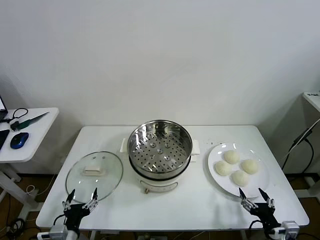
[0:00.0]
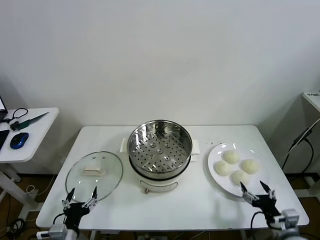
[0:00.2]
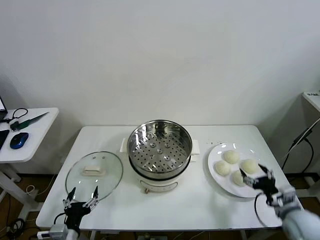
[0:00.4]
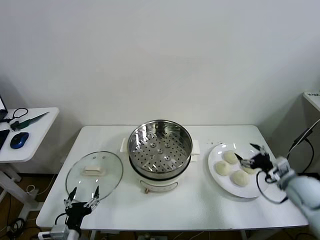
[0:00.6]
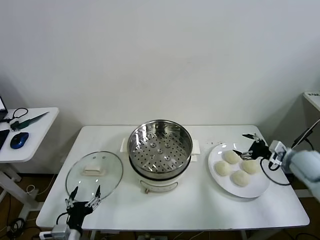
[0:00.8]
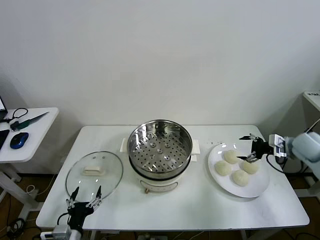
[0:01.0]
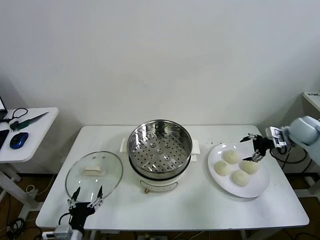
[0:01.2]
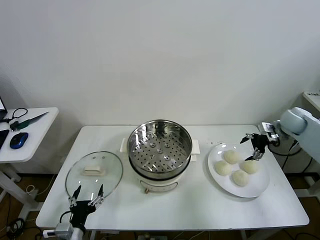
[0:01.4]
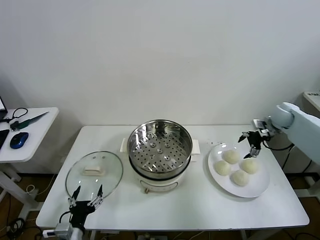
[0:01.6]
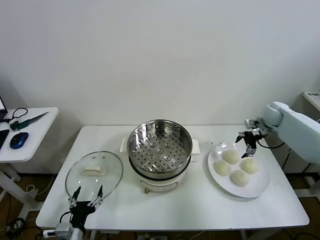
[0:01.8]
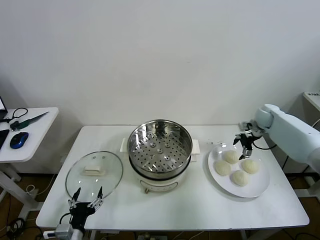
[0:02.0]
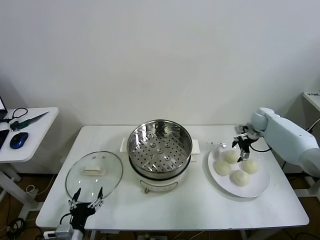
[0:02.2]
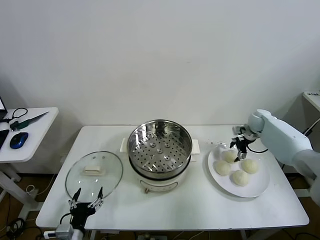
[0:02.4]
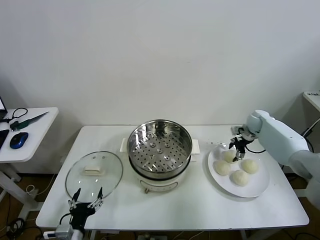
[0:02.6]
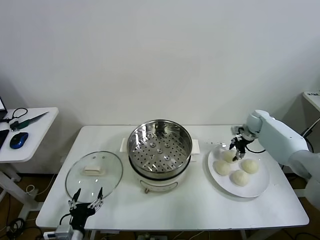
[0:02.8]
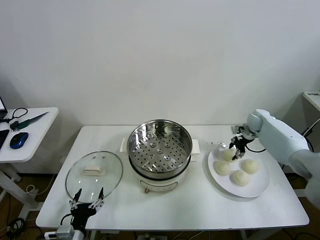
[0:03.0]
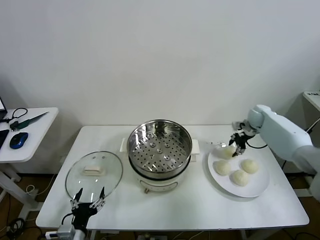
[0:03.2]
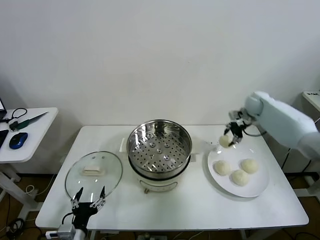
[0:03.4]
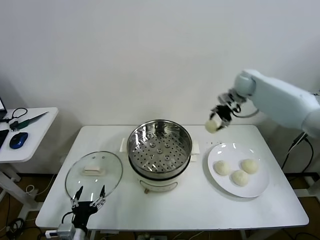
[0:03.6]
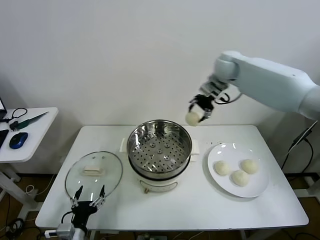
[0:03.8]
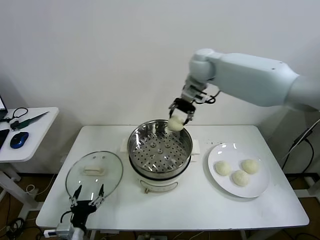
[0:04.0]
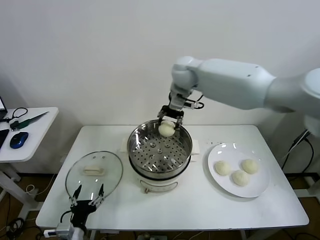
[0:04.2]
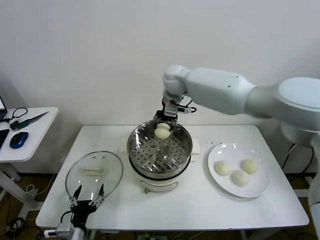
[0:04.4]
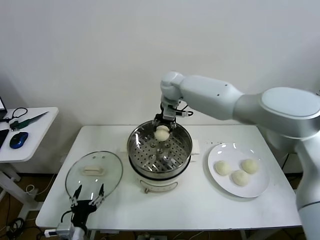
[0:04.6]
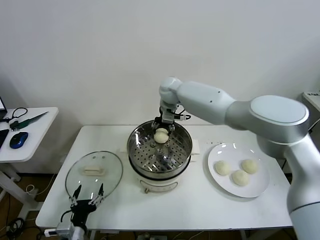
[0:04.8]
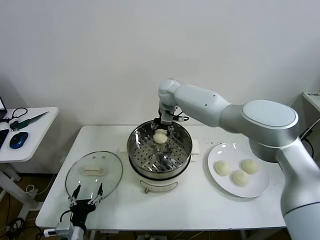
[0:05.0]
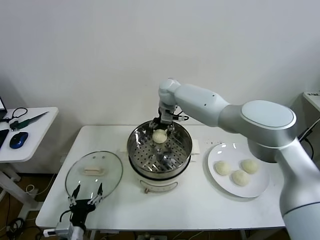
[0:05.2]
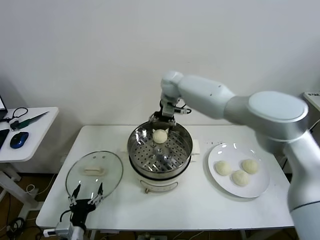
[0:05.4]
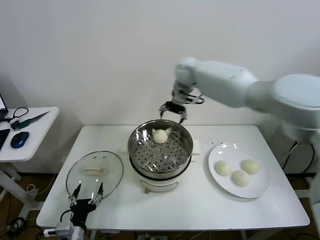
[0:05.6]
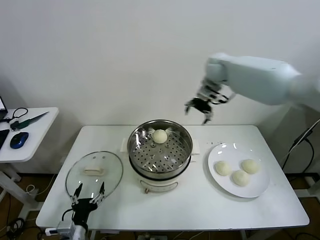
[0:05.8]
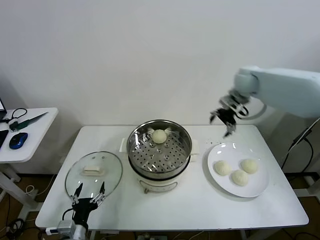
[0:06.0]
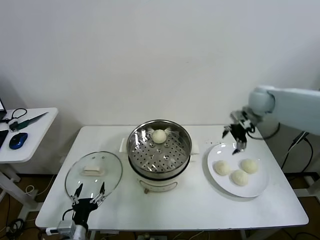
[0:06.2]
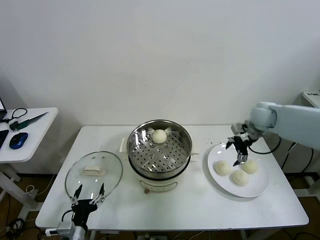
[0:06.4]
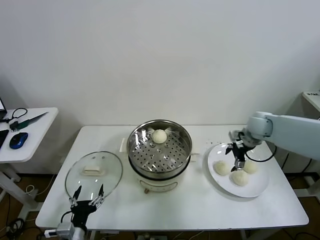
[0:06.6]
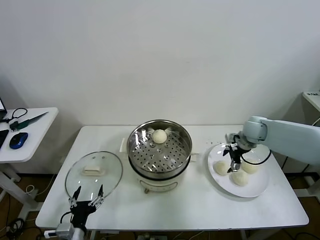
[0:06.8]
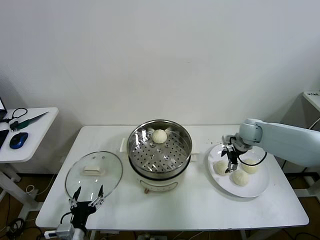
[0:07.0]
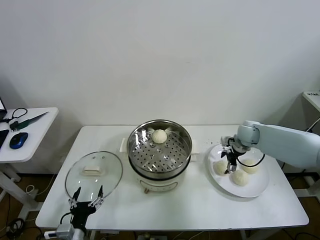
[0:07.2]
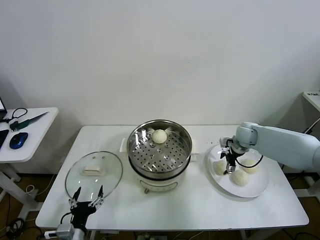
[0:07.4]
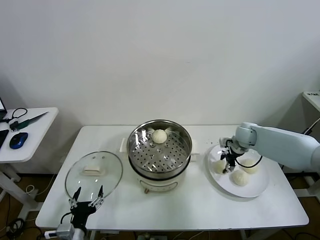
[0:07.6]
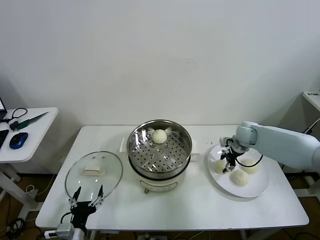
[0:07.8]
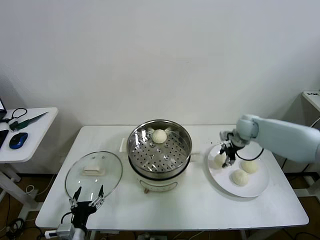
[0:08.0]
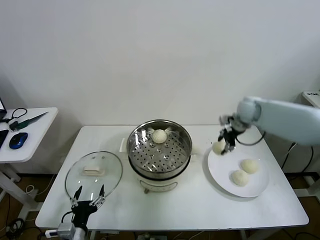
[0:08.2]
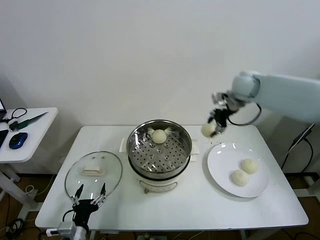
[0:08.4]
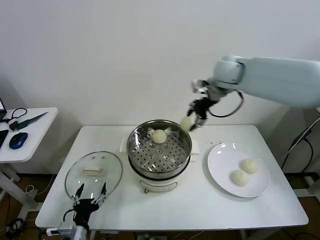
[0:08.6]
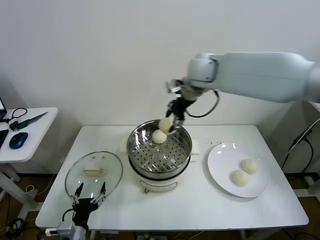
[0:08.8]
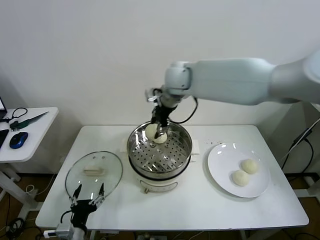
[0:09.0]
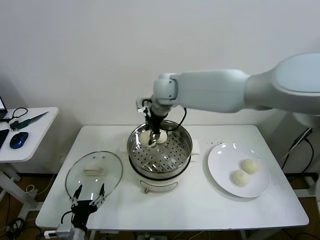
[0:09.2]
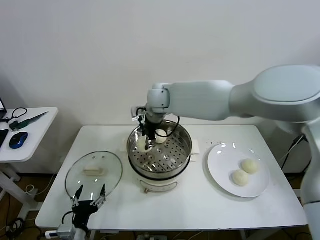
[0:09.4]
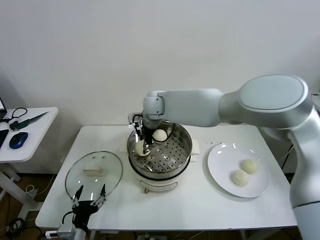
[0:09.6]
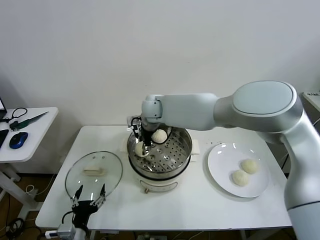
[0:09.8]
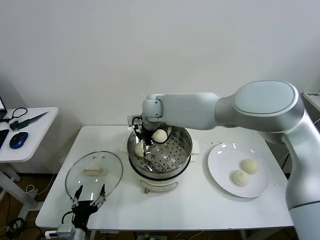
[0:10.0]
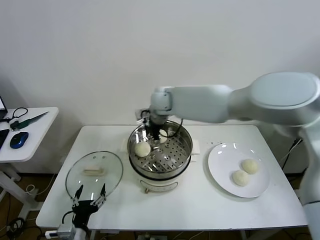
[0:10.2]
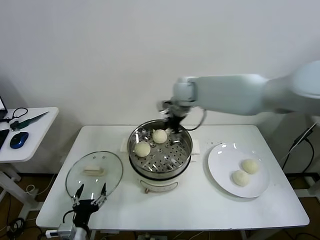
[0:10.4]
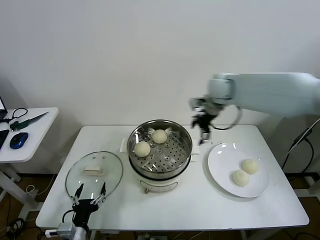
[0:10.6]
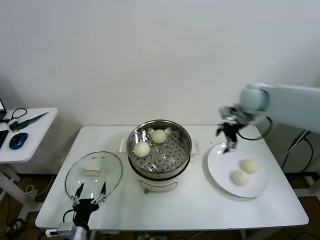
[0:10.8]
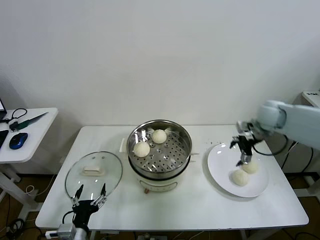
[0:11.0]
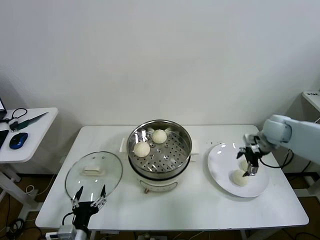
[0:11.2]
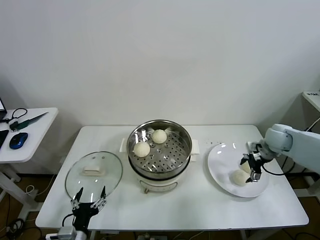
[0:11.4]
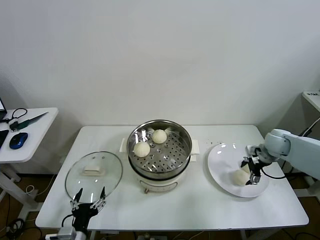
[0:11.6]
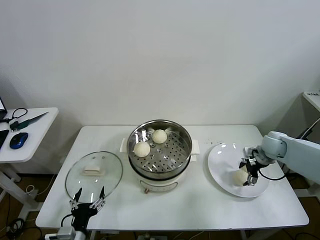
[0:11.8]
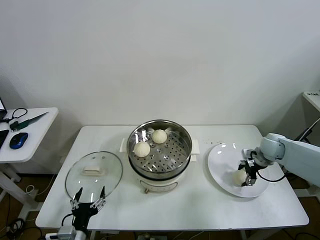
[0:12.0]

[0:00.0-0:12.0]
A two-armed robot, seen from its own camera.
Task of the whole recording: take steamed baozi put them in steamer then cover it.
Step, 0:00.0 to 0:02.8: Grasp the baozi in the plate with right gripper.
Step, 0:03.0 to 0:05.2: Place the baozi on the steamer with right gripper.
Step, 0:05.4 to 0:07.6: Grasp the baozi in the plate with right gripper.
Step, 0:08.0 to 0:10.0: Place the baozi on the steamer with right gripper.
0:01.6 to 0:03.0: The right gripper heads downward, covering roughly 5 cm, and closes.
0:03.0 to 0:04.4: The right gripper heads to the left and upward, covering about 40 cm.
0:04.4 to 0:06.0: The right gripper travels to the right by approximately 30 cm, and opens its fingers.
0:06.0 to 0:07.6: The right gripper is displaced downward by some 20 cm, and closes up.
0:07.6 to 0:09.0: The right gripper moves to the left and upward, about 40 cm.
0:09.0 to 0:10.4: The right gripper moves to the right, approximately 10 cm, and opens up.
0:10.4 to 0:12.0: The right gripper heads to the right and downward, covering approximately 35 cm, and closes.

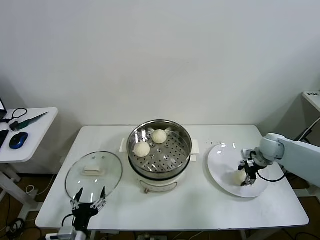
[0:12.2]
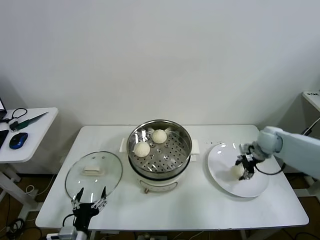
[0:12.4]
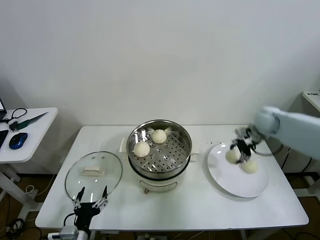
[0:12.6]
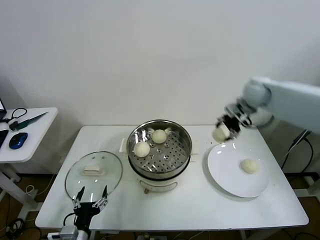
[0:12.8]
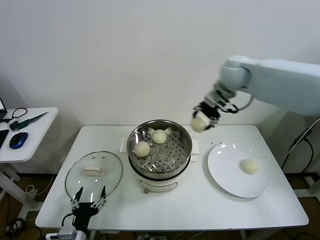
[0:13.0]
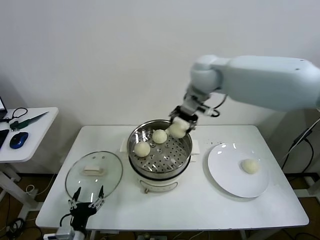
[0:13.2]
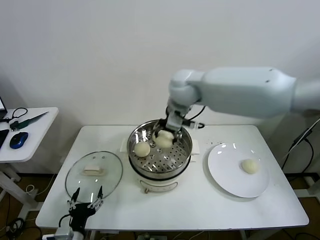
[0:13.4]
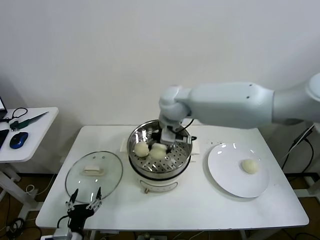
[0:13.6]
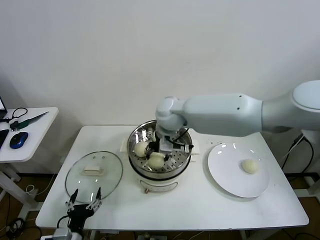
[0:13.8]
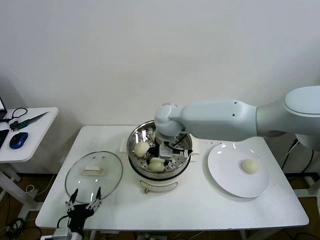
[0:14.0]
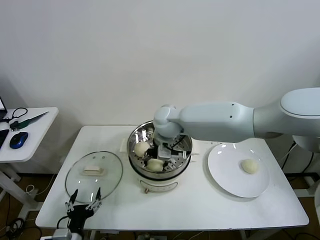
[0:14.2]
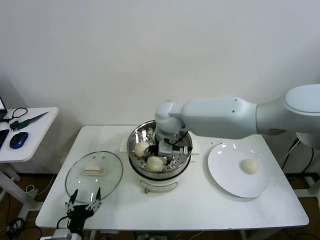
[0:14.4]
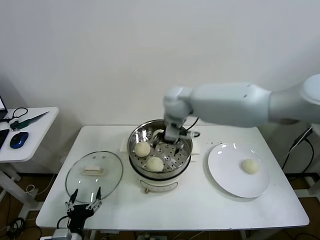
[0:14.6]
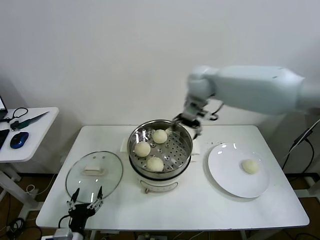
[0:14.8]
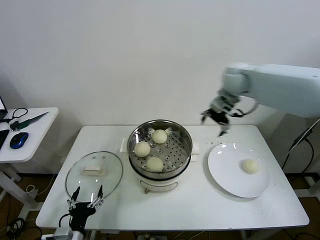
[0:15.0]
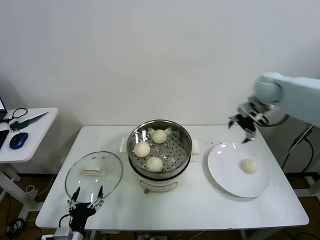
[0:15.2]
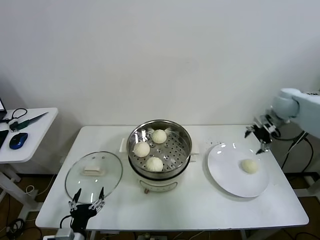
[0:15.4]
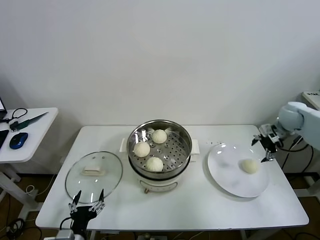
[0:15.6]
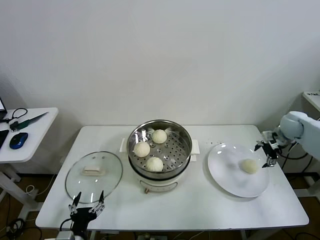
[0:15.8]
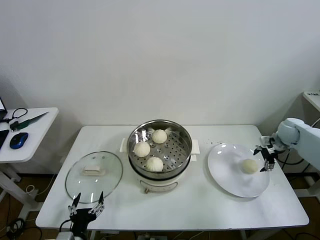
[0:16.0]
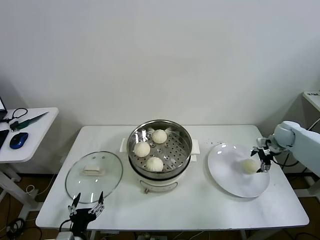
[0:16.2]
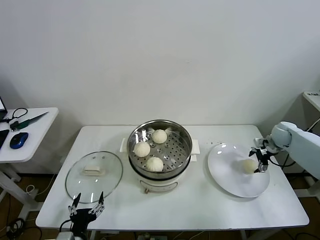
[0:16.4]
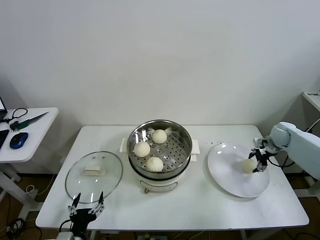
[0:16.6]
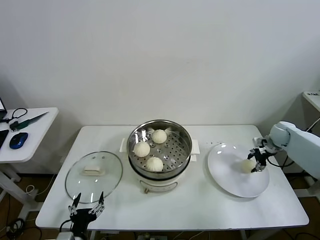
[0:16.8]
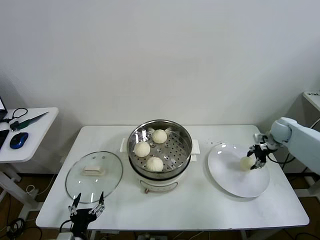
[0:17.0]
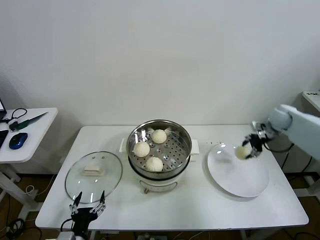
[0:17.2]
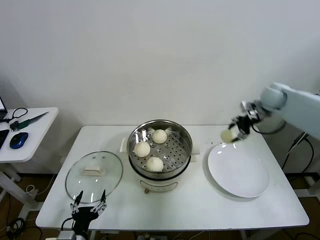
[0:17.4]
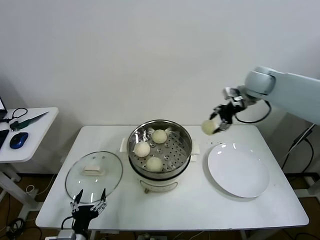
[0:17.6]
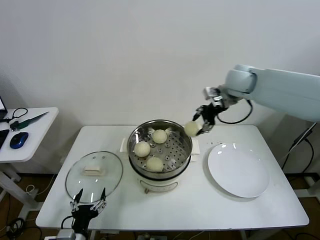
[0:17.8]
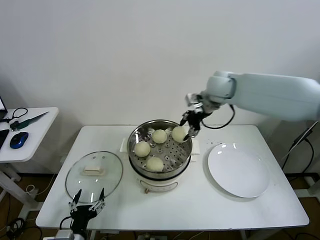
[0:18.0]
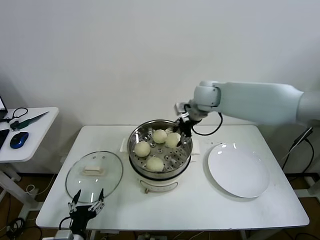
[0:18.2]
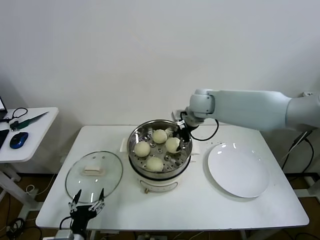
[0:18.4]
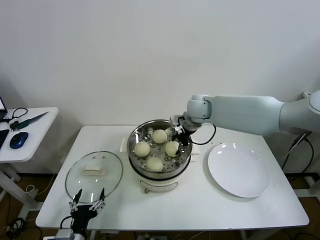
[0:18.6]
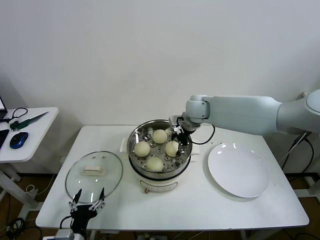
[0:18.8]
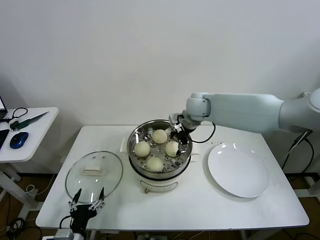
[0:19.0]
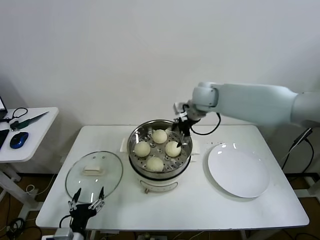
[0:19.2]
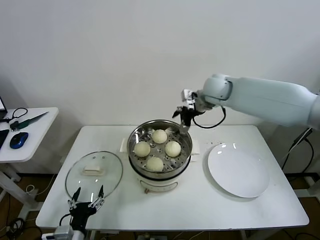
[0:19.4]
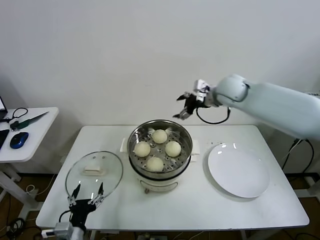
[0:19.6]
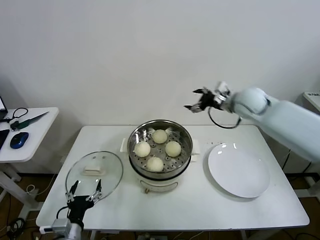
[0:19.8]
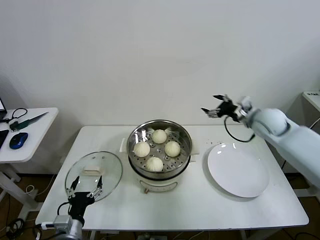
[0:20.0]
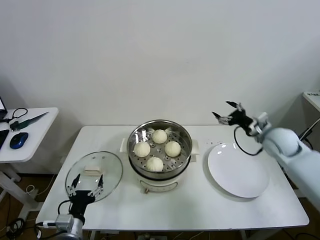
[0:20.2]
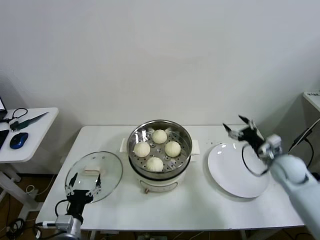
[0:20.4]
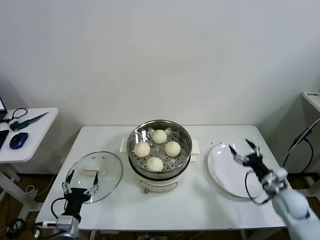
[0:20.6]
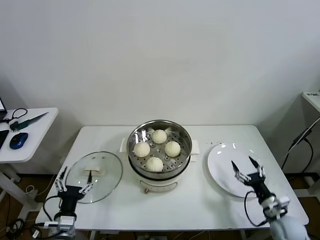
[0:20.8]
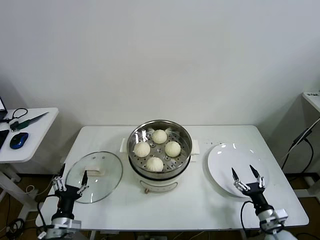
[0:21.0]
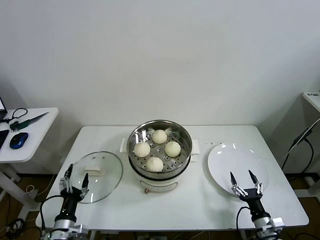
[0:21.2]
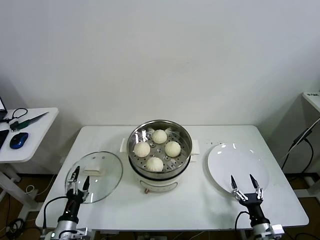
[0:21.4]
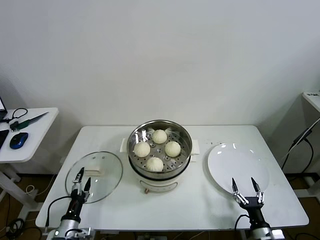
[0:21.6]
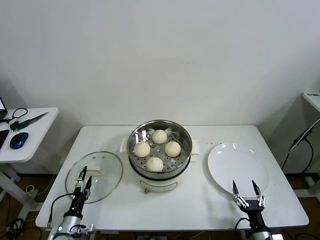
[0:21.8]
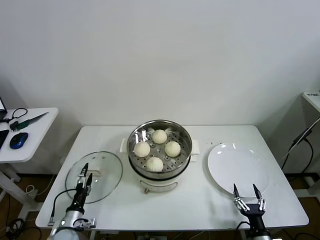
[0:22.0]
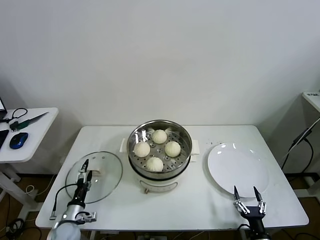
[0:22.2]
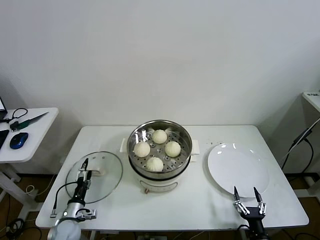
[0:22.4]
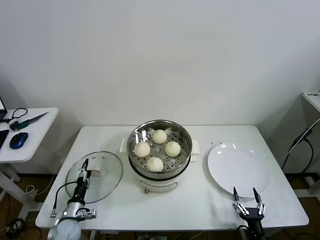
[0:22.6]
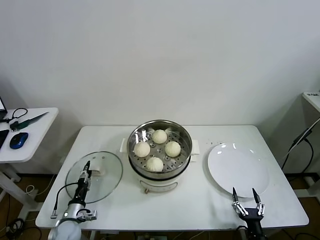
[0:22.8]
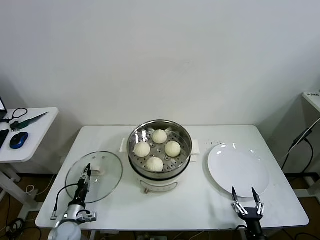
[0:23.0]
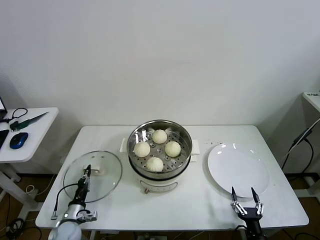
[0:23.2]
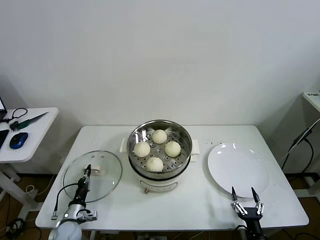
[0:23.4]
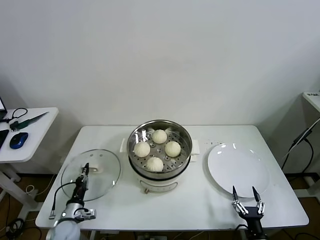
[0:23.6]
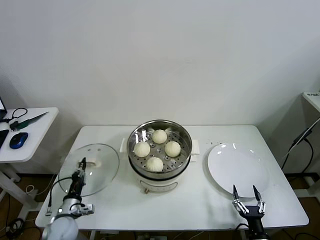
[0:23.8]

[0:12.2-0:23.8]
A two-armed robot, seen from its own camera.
Task of the whole recording: take steamed baozi put them in steamer then cover it.
Step, 0:12.2 to 0:14.4: Place the baozi on the steamer with right gripper.
Step, 0:14.6 to 0:16.6: Grasp the baozi in the plate with right gripper.
Step, 0:16.8 to 0:19.0: Place the baozi on the steamer with right gripper.
Step, 0:19.2 to 0:23.2: Grasp the pot lid with left gripper.
0:12.2 to 0:13.6: The right gripper moves to the left and upward, about 40 cm.
0:13.6 to 0:15.0: The right gripper goes about 25 cm to the right, and opens its fingers.
0:15.0 to 0:16.6: The right gripper moves downward and to the right, some 30 cm, and closes its fingers.
0:16.6 to 0:18.0: The right gripper travels to the left and upward by roughly 35 cm, and closes up.
0:18.0 to 0:19.4: The right gripper moves approximately 10 cm downward and comes back, and opens up.
0:19.4 to 0:21.0: The left gripper shifts by roughly 5 cm; the right gripper is displaced downward, backward and to the right by approximately 60 cm.
0:21.0 to 0:22.4: The right gripper travels backward, downward and to the left by about 10 cm; the left gripper heads downward and forward, covering about 15 cm.
0:22.4 to 0:23.8: The left gripper closes.
